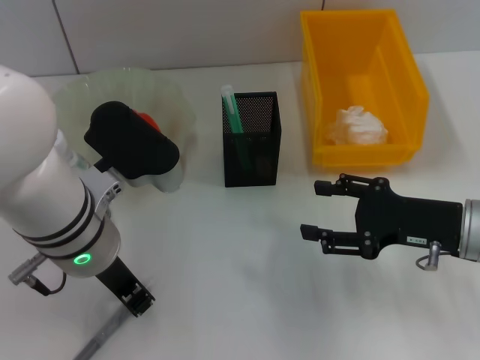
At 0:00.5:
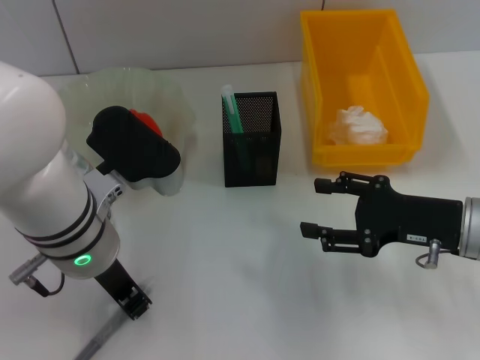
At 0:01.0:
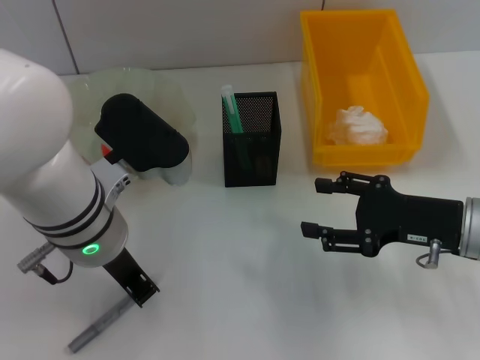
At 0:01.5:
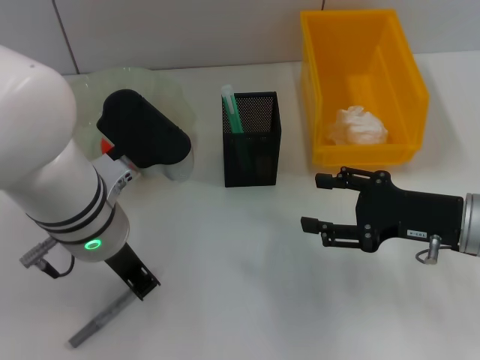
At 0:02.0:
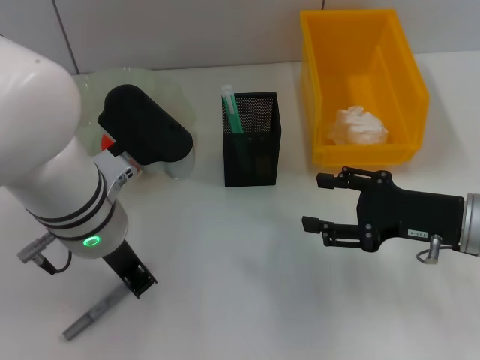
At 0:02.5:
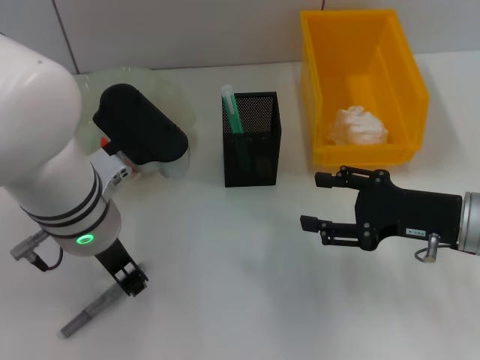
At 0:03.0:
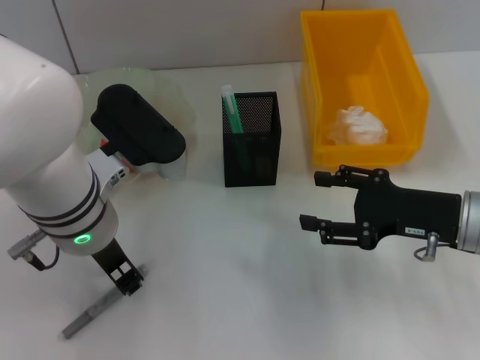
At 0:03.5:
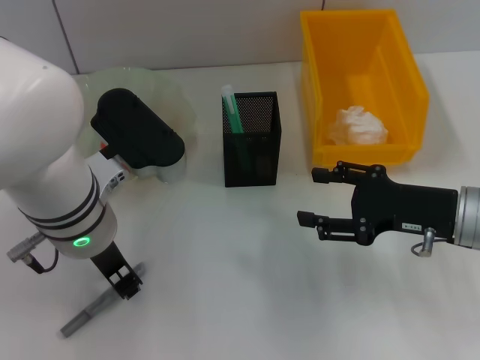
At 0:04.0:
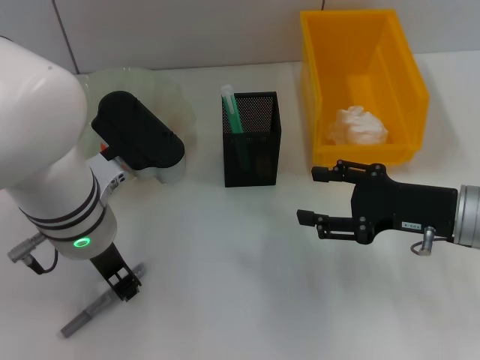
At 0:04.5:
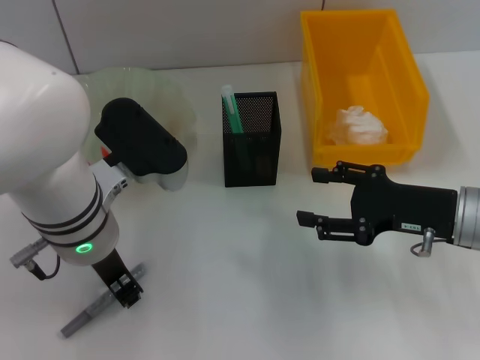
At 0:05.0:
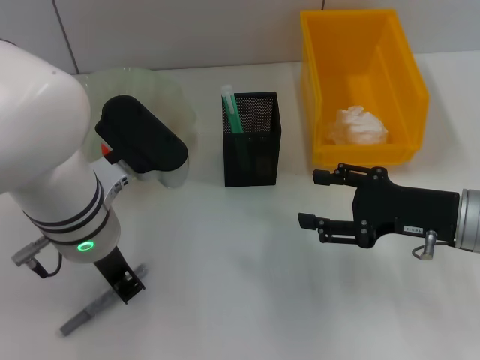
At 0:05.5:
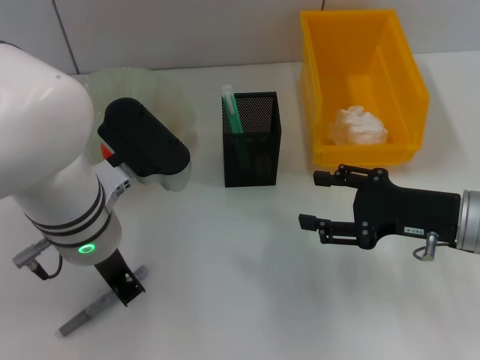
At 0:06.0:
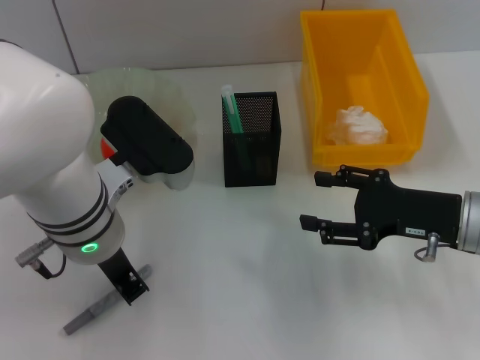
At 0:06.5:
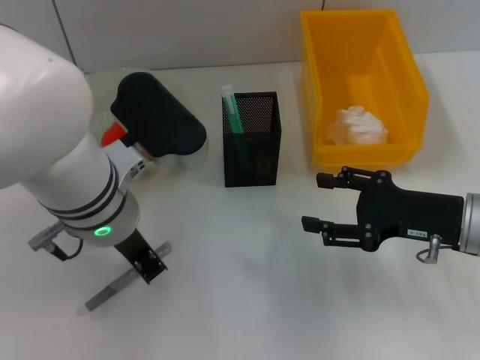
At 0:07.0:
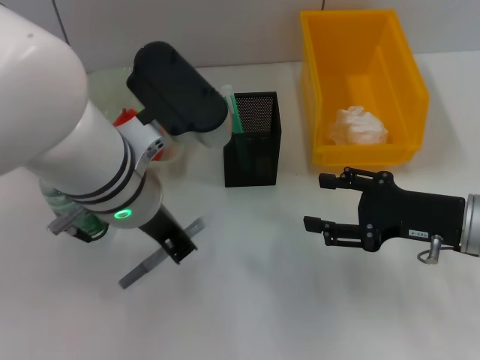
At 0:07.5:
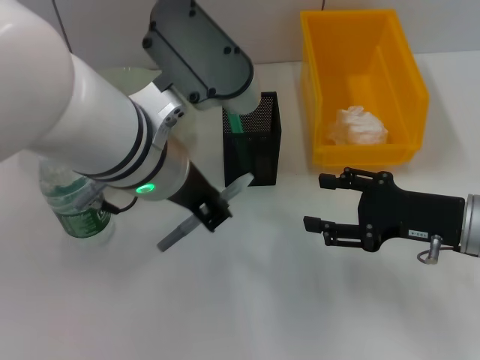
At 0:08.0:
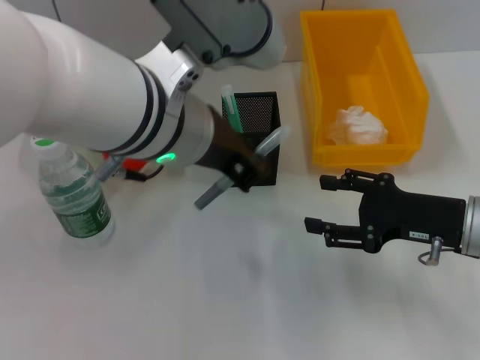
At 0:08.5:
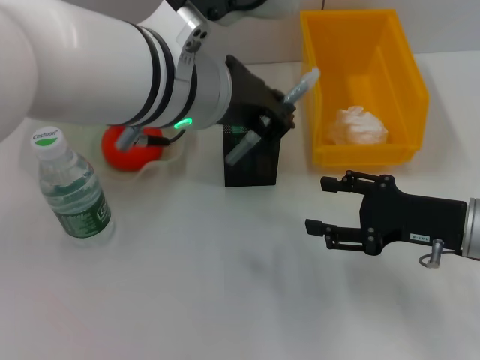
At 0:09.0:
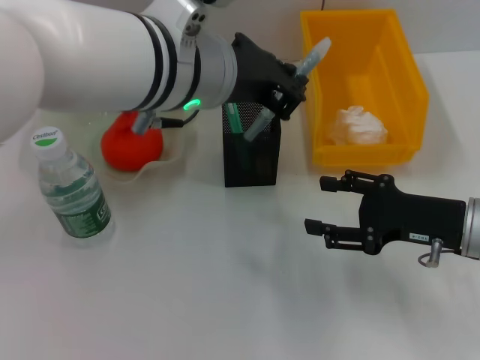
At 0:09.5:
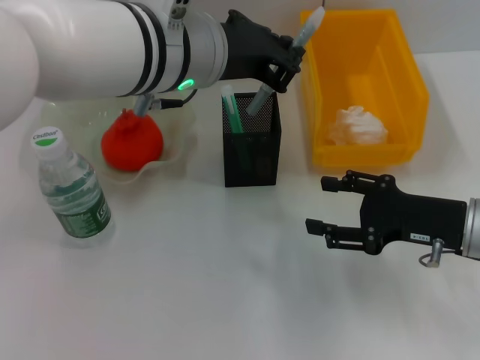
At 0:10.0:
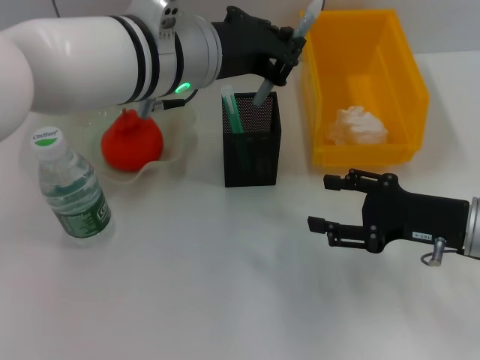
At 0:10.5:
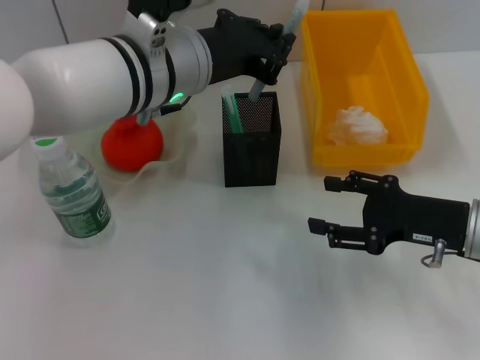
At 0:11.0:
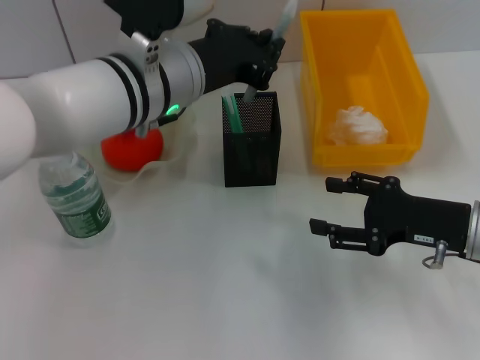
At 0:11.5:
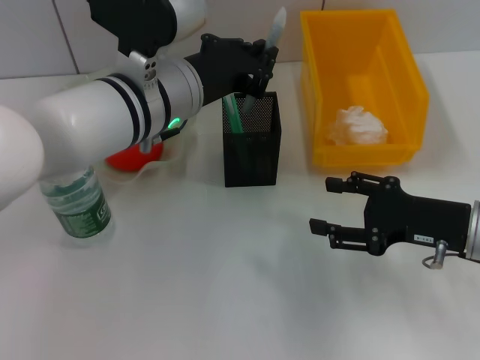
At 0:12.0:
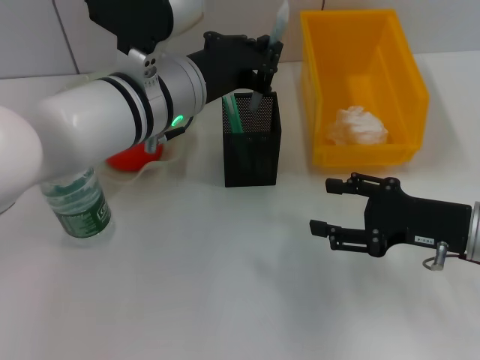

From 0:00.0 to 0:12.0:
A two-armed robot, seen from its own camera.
Step, from 0:00.0 to 0:05.0: Grab the gray glue with the left hand.
From 0:00.0 to 0:02.0: The grippers stay close to where they were, moving slightly.
From 0:02.0 to 0:06.0: Both grippers stay put.
From 0:06.0 to 0:08.0: The left gripper goes roughly 10 cm upward and to the right.
From 0:08.0 to 0:10.0: The left gripper moves forward, approximately 5 cm.
From 0:10.0 to 0:12.0: The left gripper shifts about 5 cm downward.

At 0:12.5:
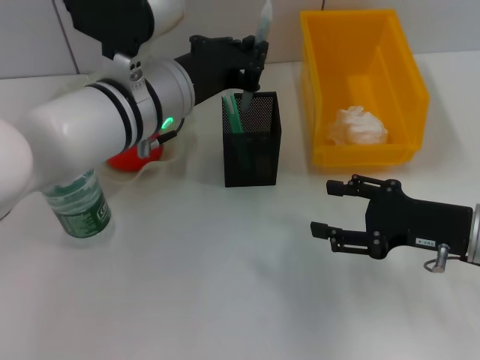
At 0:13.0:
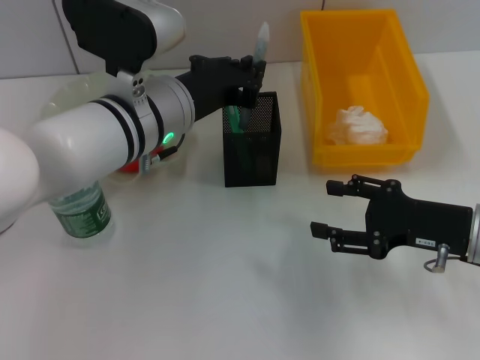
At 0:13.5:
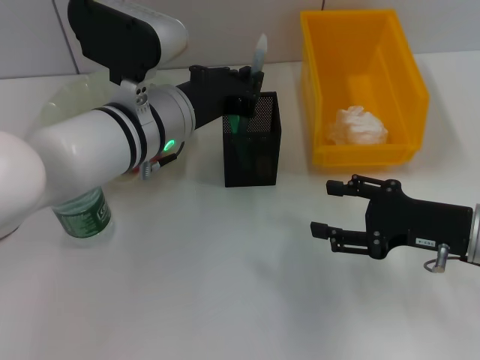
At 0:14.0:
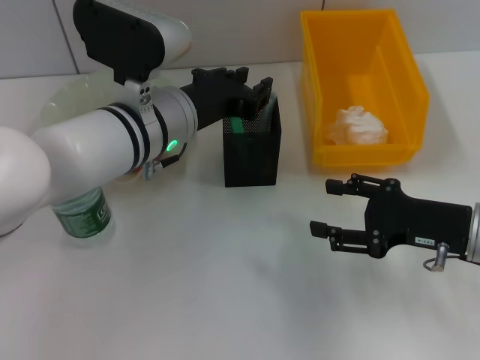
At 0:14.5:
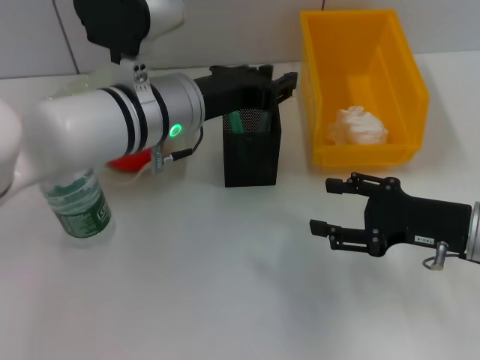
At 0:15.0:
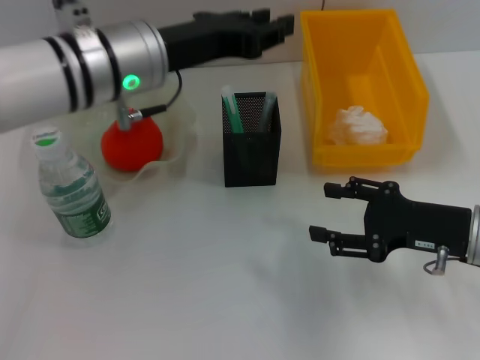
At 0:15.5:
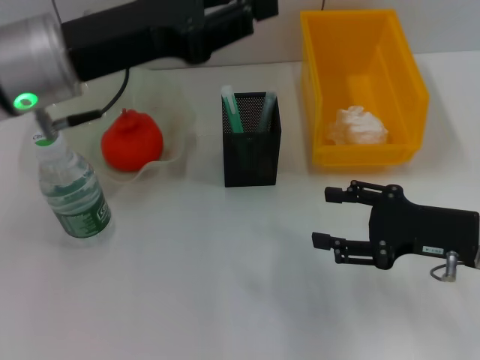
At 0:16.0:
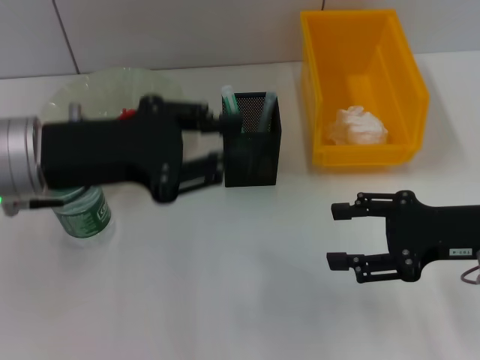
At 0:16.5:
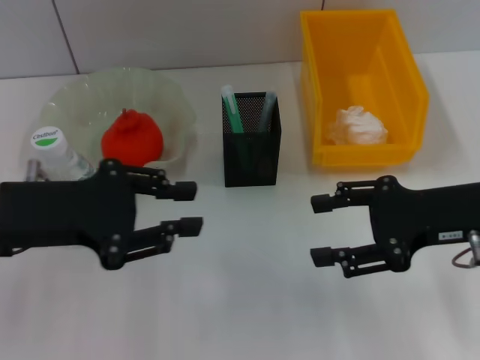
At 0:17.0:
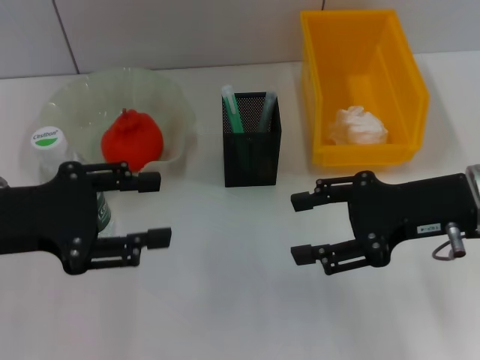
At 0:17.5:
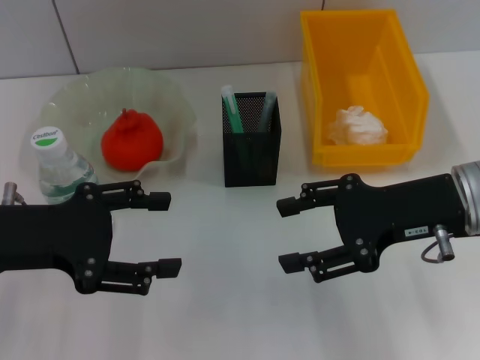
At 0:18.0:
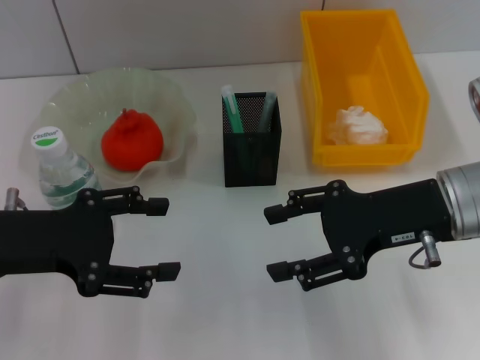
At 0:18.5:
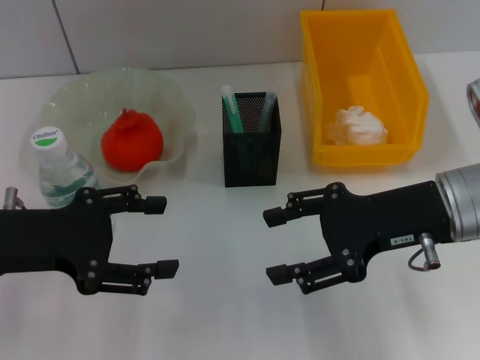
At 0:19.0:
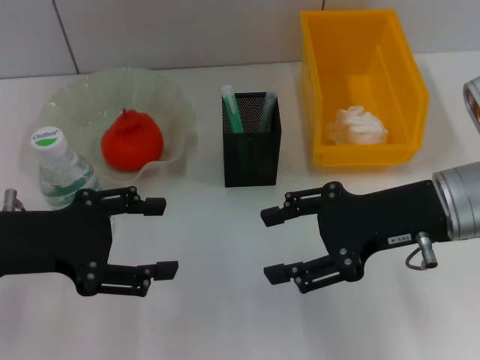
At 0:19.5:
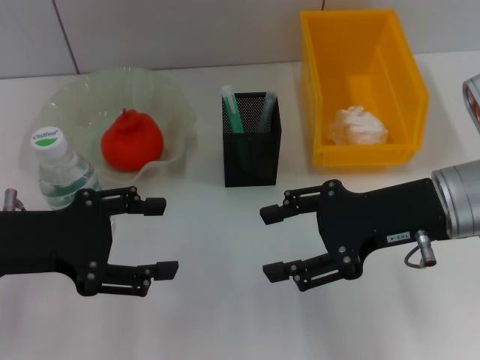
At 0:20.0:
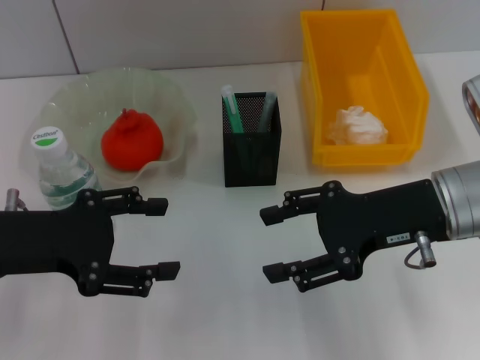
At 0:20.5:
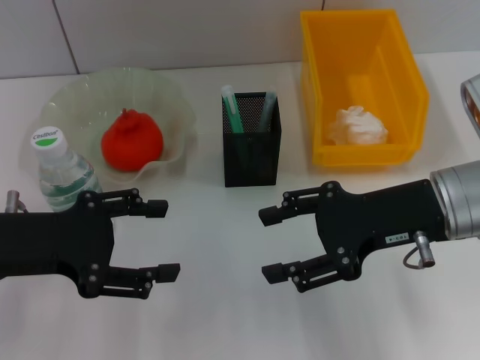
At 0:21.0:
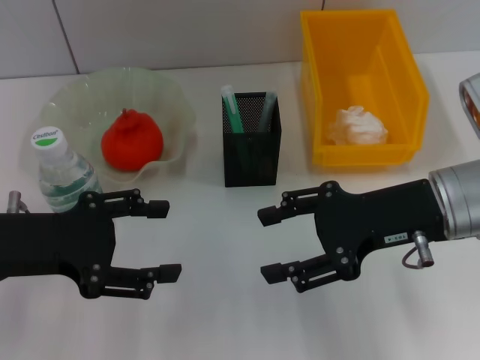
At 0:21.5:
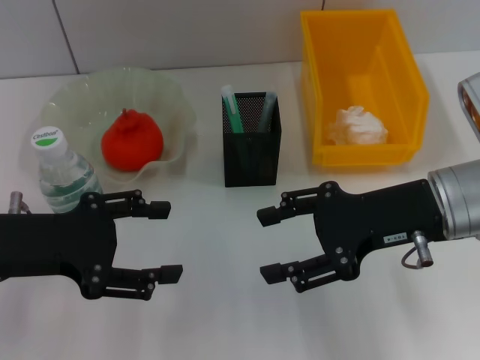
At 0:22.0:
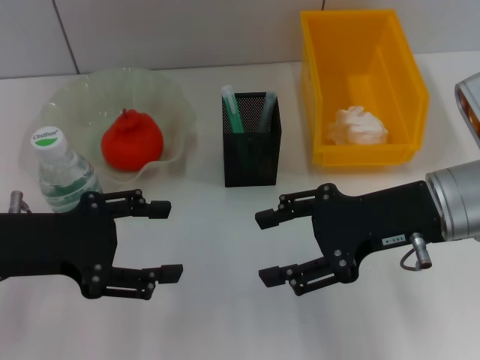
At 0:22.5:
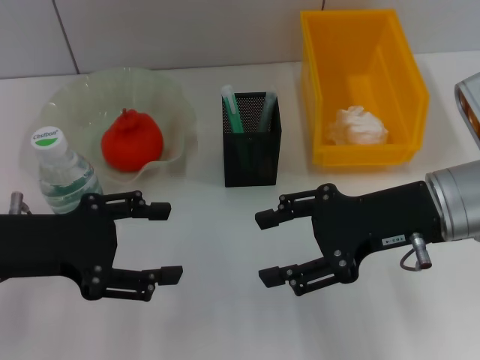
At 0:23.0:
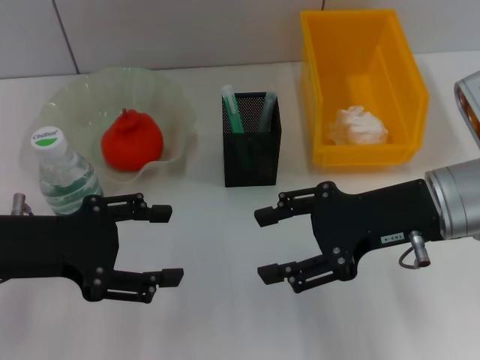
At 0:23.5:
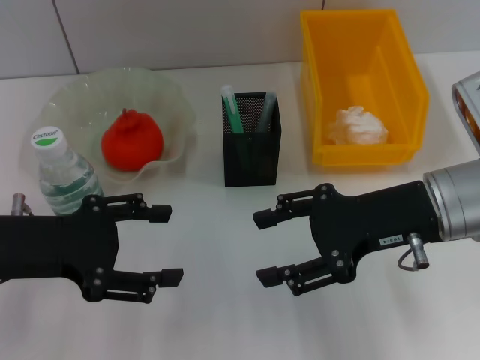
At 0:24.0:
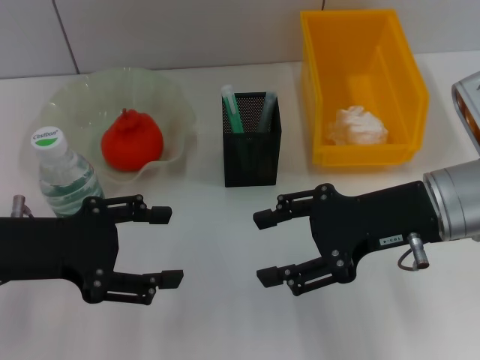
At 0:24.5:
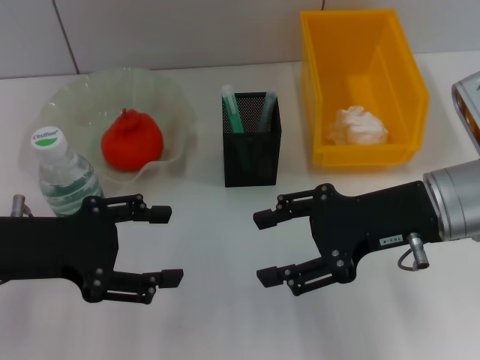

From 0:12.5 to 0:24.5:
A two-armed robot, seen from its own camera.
From 0:12.5 to 0:14.5: The grippers make only small movements.
From 0:14.5 to 0:16.5: The left gripper heads to the left and backward, covering some 15 cm. Meanwhile the right gripper moves upward, roughly 10 cm.
From 0:16.5 to 0:18.5: The left gripper opens.
From 0:18.5 to 0:24.5: Both grippers stay about where they are.

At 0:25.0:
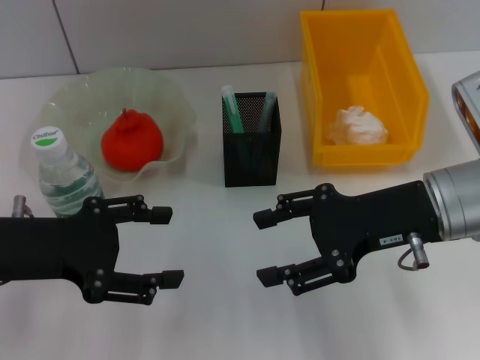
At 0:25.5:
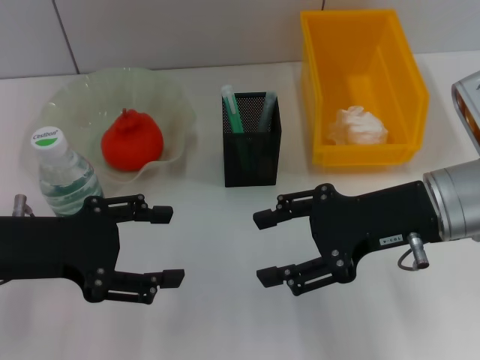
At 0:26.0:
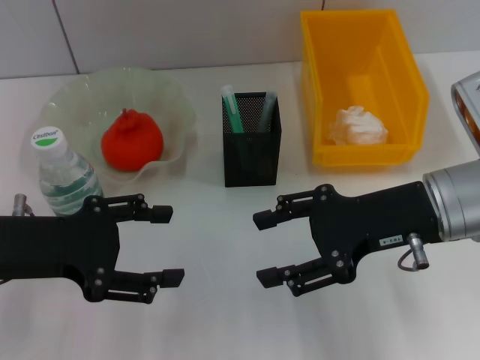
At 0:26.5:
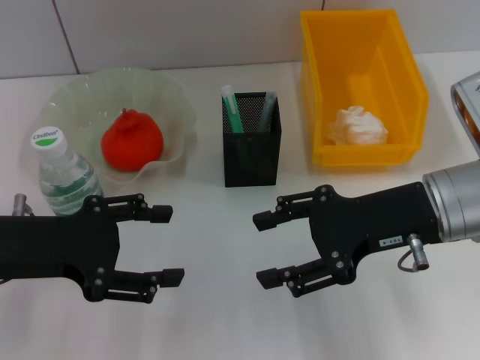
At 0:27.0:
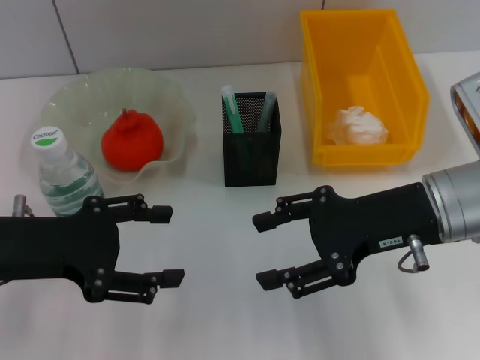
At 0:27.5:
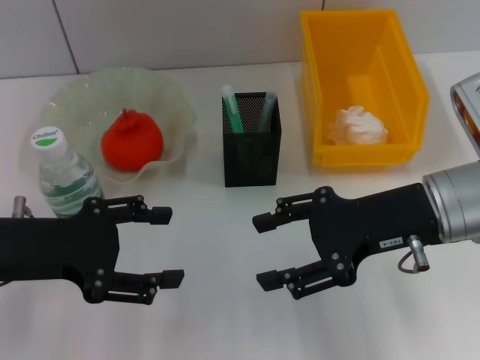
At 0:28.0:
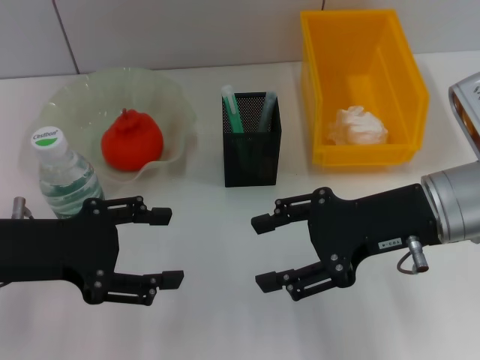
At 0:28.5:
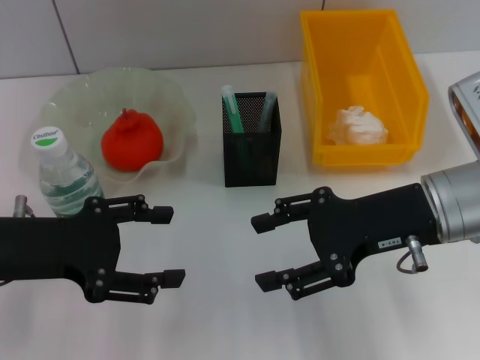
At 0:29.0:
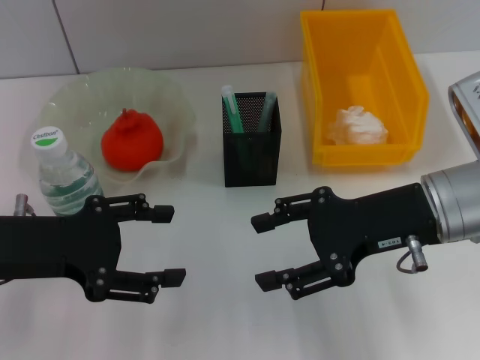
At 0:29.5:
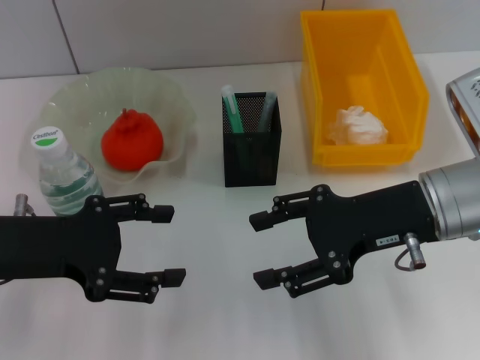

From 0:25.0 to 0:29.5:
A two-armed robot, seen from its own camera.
From 0:25.0 to 0:29.5: Both grippers stay put.
